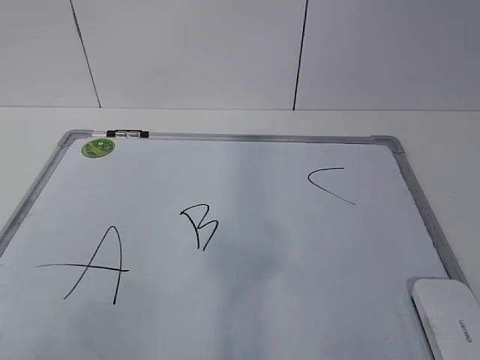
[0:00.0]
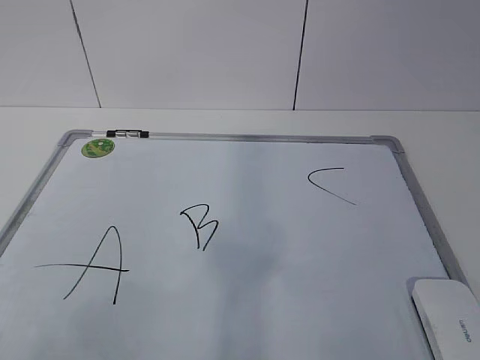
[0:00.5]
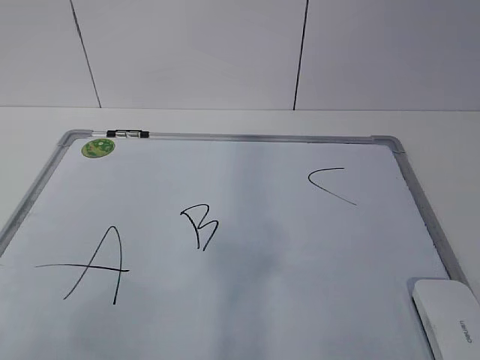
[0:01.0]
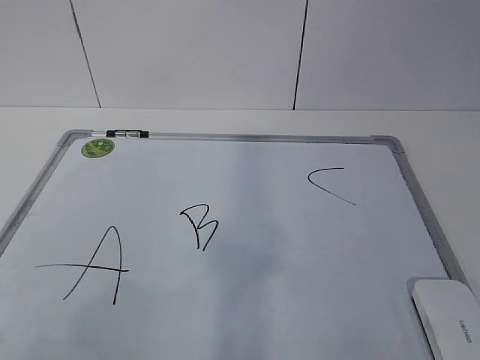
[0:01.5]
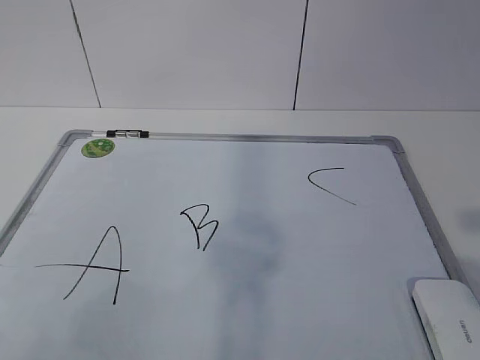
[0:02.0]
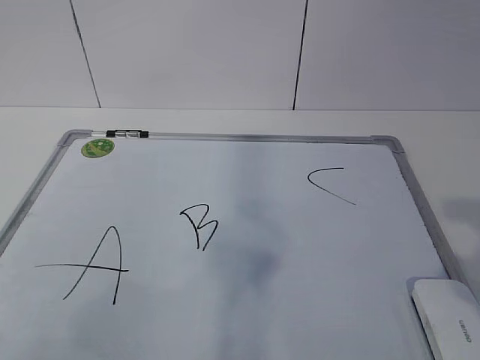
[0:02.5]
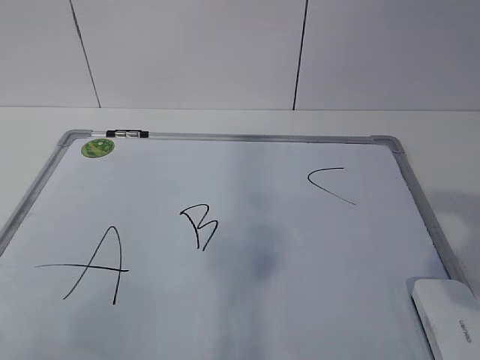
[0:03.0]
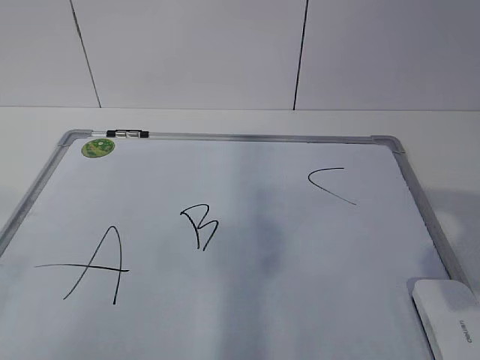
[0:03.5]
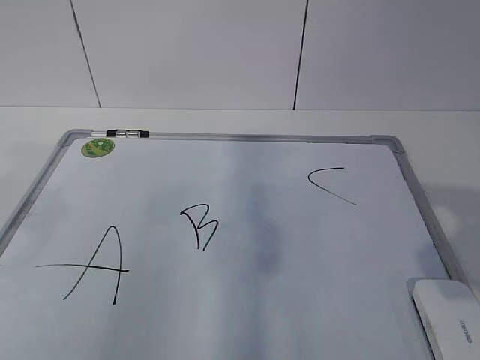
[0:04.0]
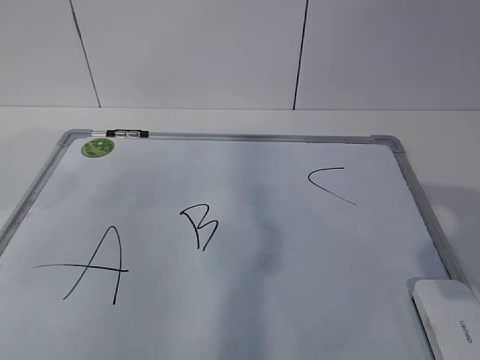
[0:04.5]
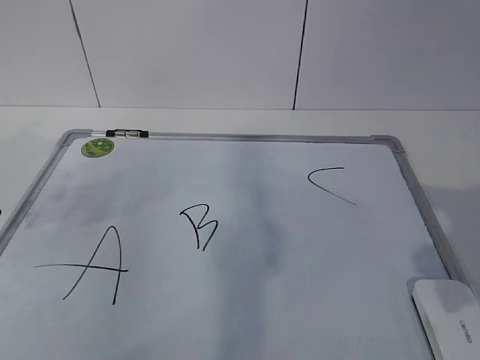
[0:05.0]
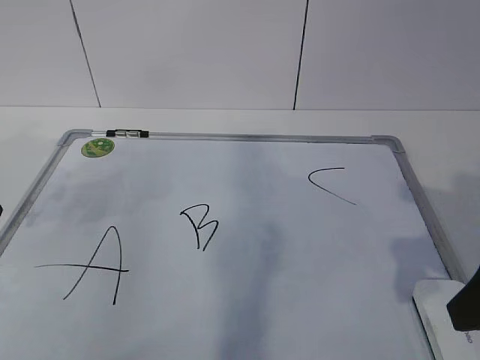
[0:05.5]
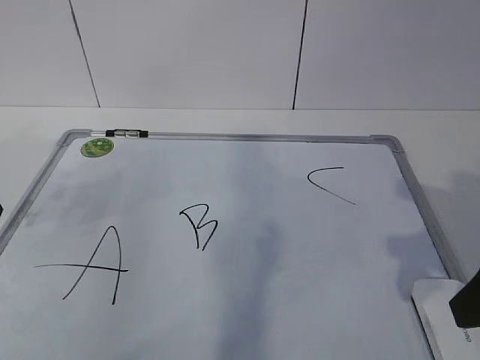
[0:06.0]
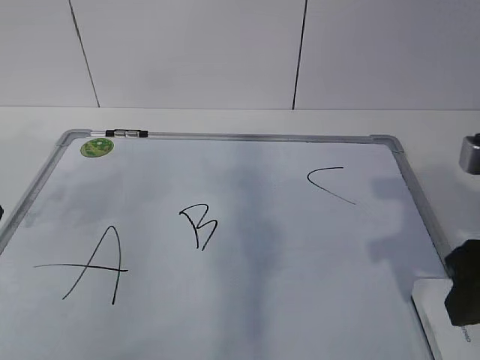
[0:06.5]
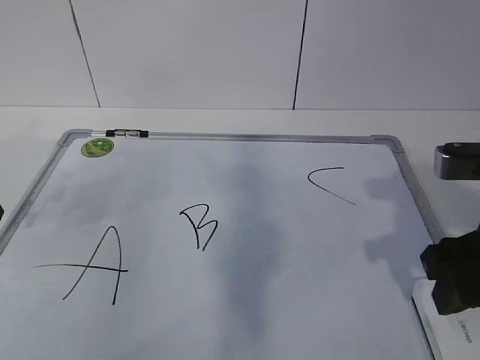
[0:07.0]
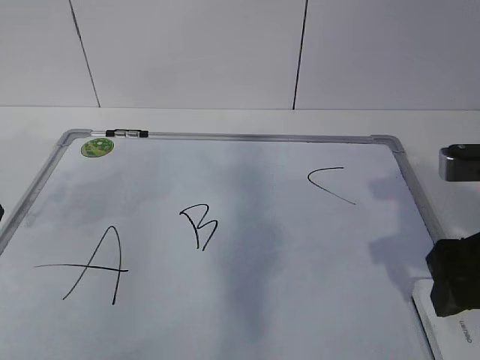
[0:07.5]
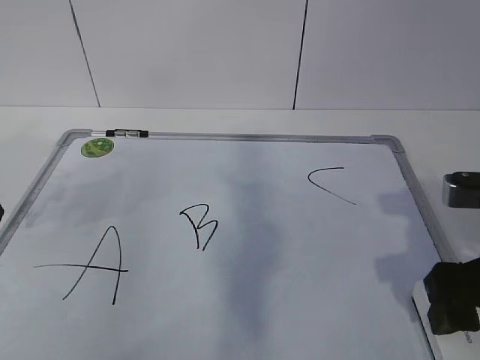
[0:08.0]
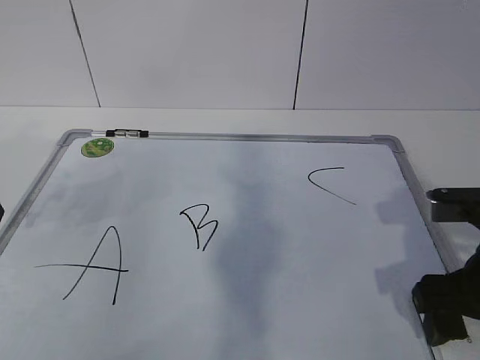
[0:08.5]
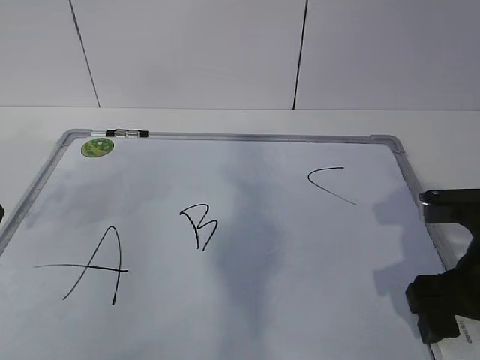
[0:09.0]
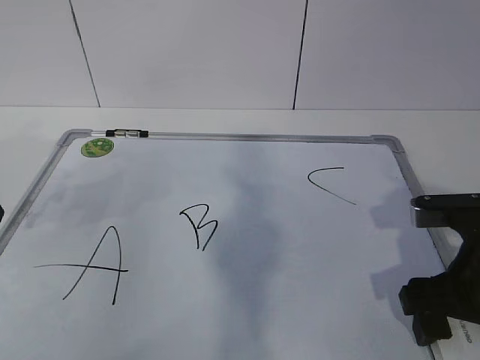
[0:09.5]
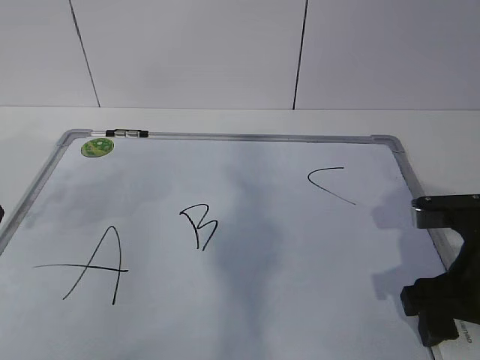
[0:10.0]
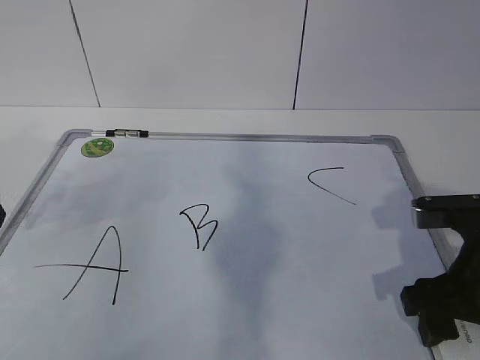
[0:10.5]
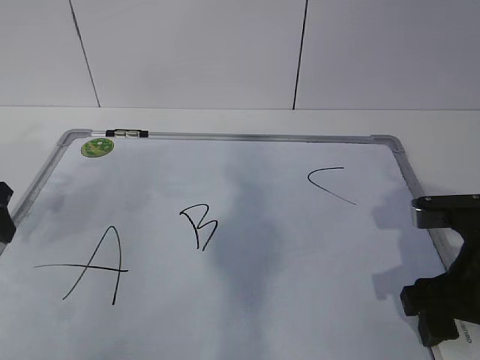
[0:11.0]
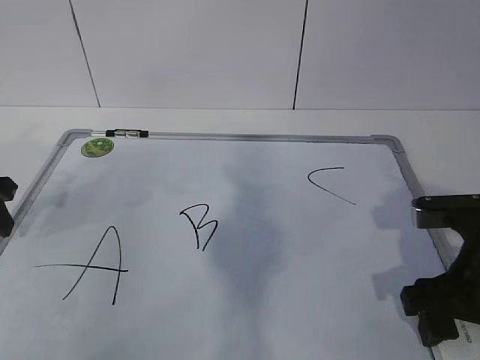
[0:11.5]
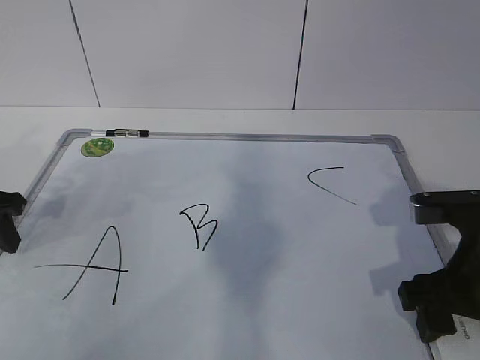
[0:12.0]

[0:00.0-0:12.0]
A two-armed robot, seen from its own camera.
Task of the whole recording: pick up the eraser on the blackboard and erase the letter "B".
Step, 0:00.0 to 0:08.0: Grab the eraser with your right hand.
0:04.0 to 0:06.0: The right gripper is displaced forward by some 5 cm, and closes up.
0:06.0 to 0:08.0: The right gripper moves about 5 cm, and opens its fingers.
0:08.0 to 0:10.0: The right gripper closes up.
0:10.0 to 0:12.0: The left gripper moves downward, approximately 5 cm, and closes up.

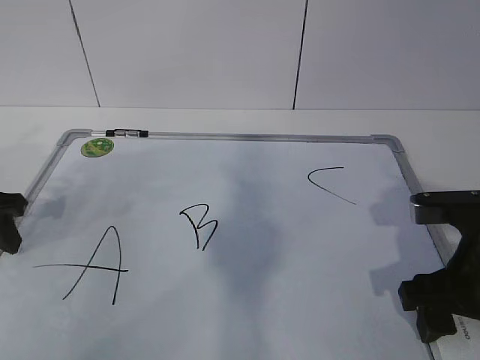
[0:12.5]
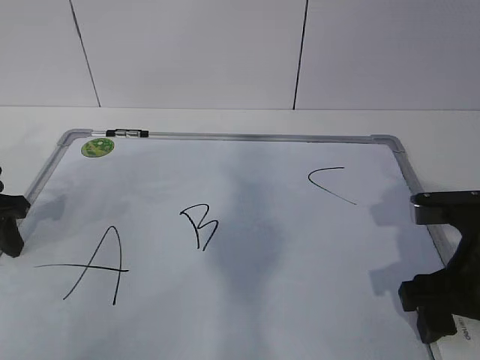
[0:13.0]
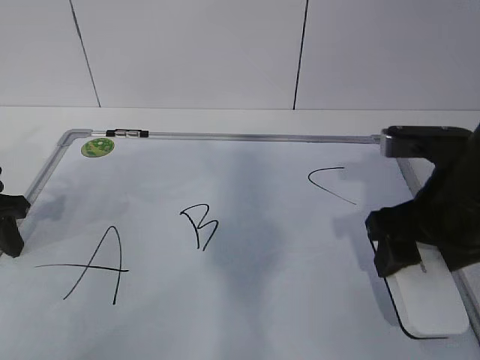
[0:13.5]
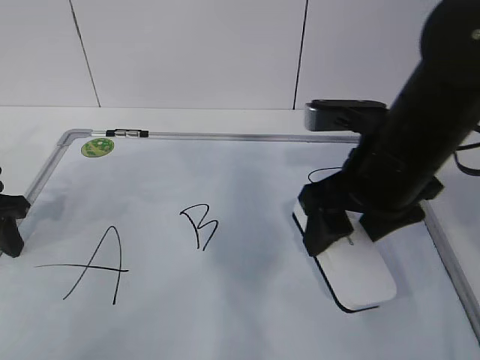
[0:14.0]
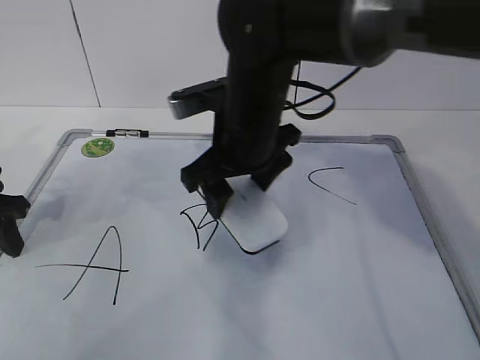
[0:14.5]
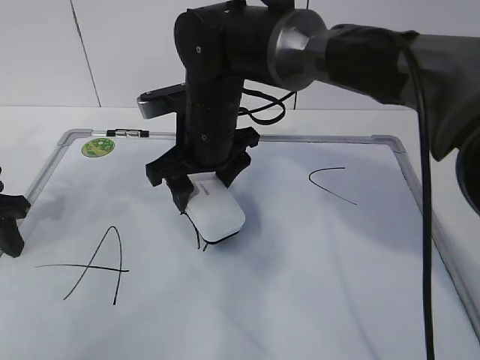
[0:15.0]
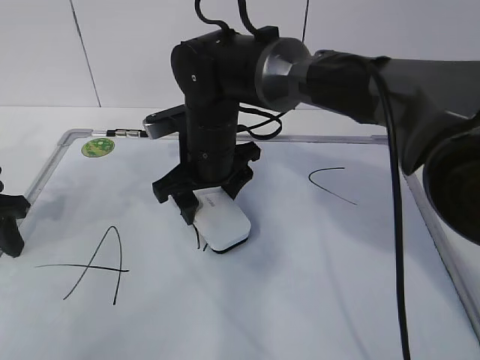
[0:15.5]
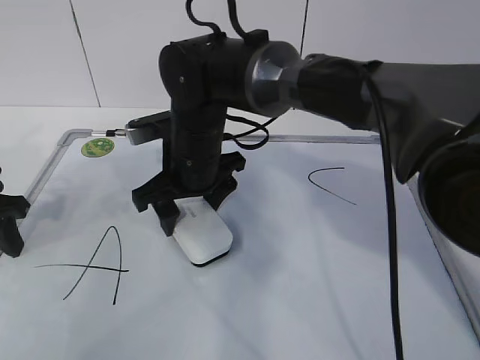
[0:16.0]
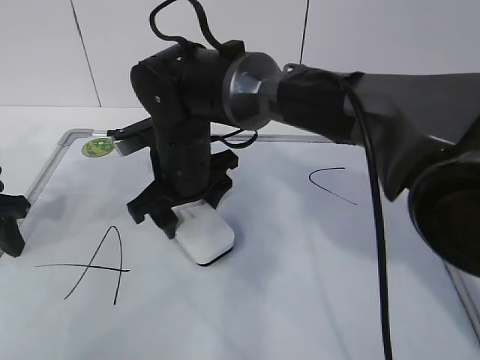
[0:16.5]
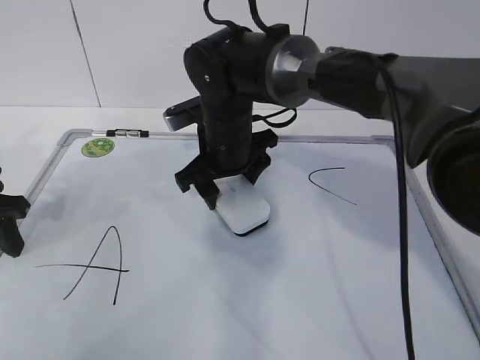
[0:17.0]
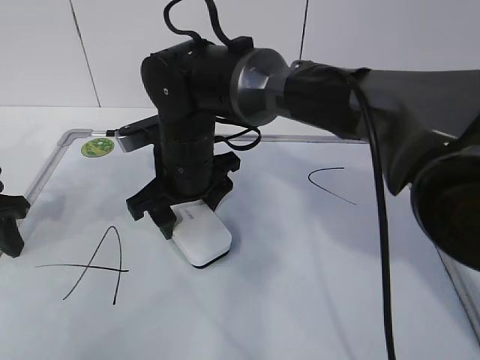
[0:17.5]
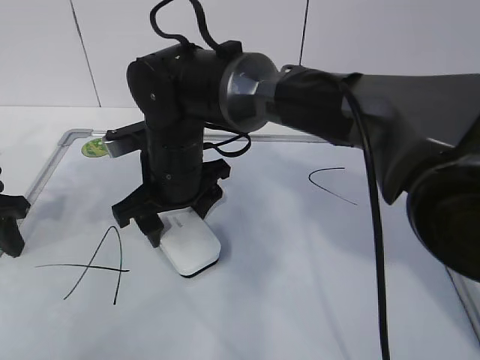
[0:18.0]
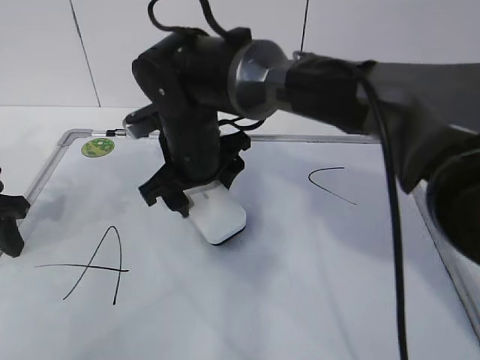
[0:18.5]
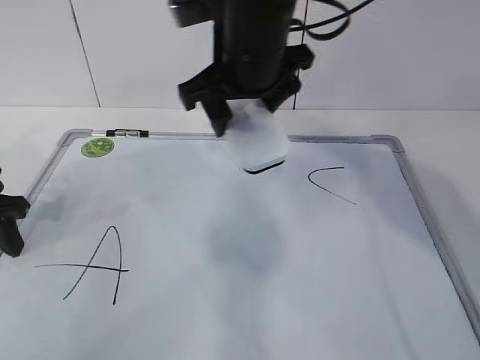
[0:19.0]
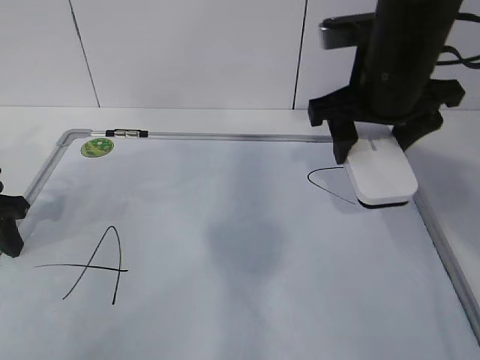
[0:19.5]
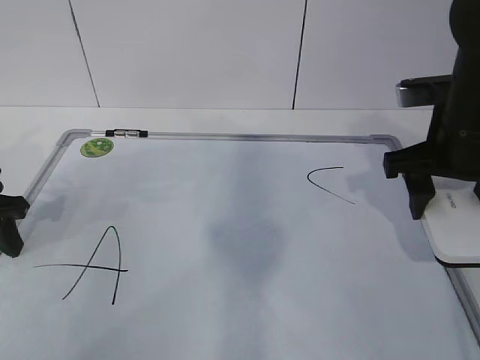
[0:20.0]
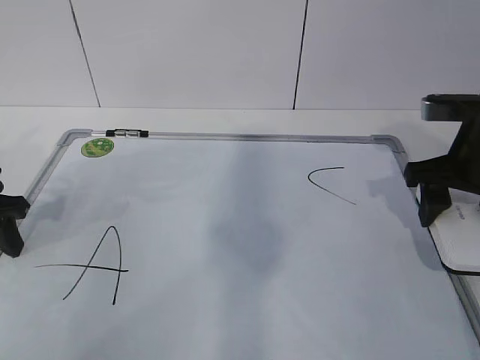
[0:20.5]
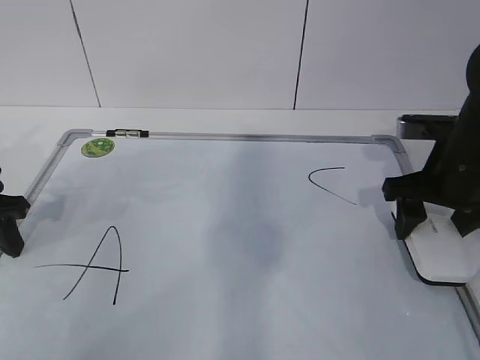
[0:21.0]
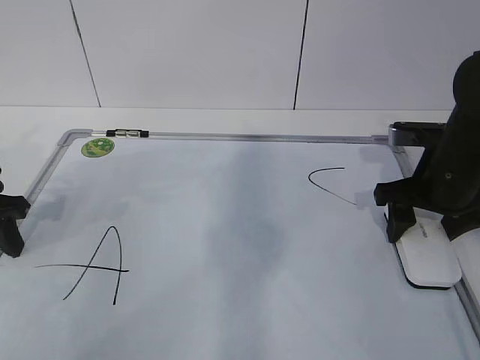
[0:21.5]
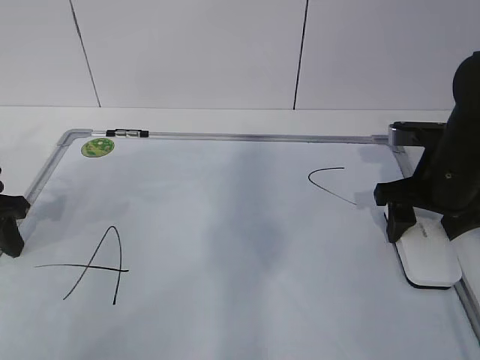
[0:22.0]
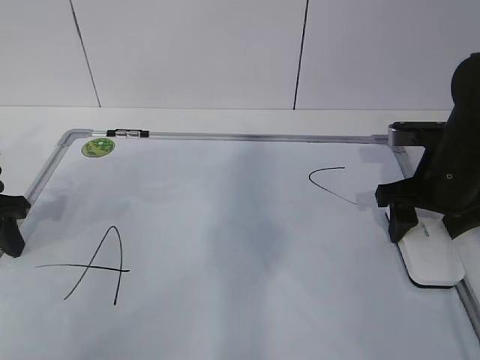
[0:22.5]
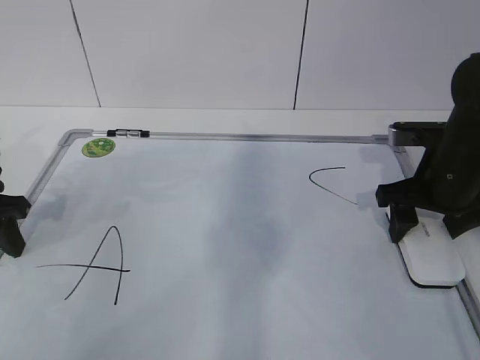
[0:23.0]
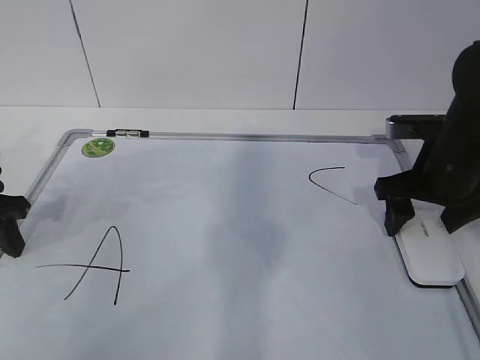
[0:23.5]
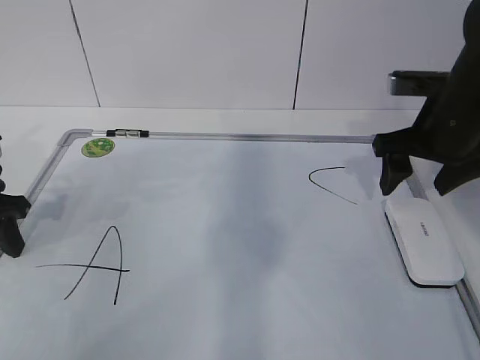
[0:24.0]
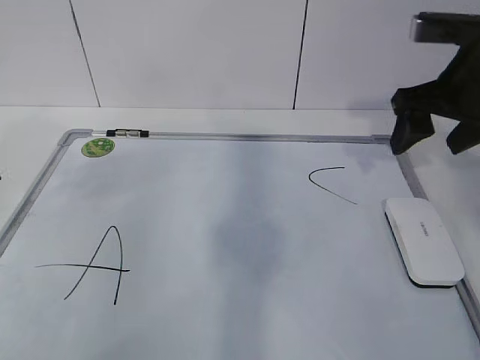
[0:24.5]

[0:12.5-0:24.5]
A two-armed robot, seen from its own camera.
Task of the whole recording: pick up the eraser on the blackboard and erase the letter "B".
Step, 0:12.5 to 0:15.0: Erase the letter B with your right hand.
Step, 0:15.5 to 0:19.0: Put down the eraser with your right hand.
0:12.5 to 0:14.5: The right gripper goes some 25 cm to the left and forward.
0:14.5 to 0:16.5: The right gripper heads to the left and downward, covering approximately 10 cm.
0:16.5 to 0:18.5: There are only small adjustments of the grippers.
0:18.5 to 0:20.5: The right gripper shifts approximately 30 cm to the right.
0:20.5 to 0:22.5: The right gripper moves roughly 5 cm.
0:22.5 to 0:24.5: The two grippers go approximately 10 cm upward. The right gripper opens.

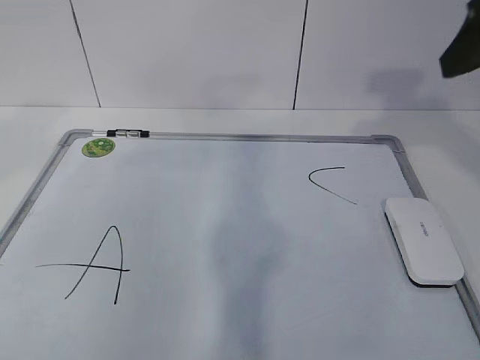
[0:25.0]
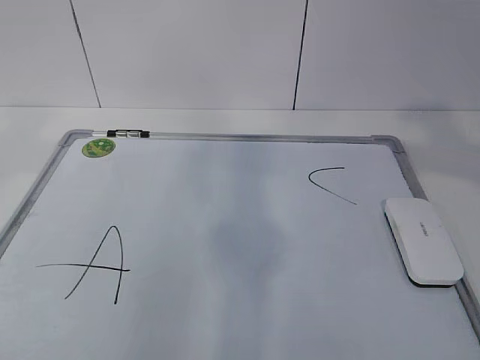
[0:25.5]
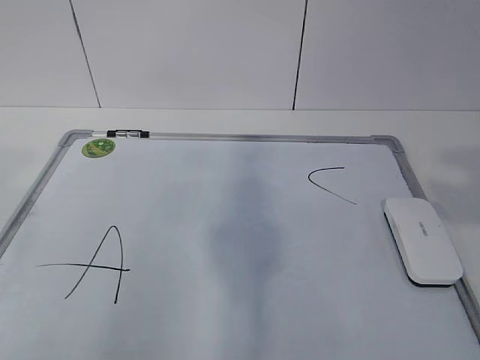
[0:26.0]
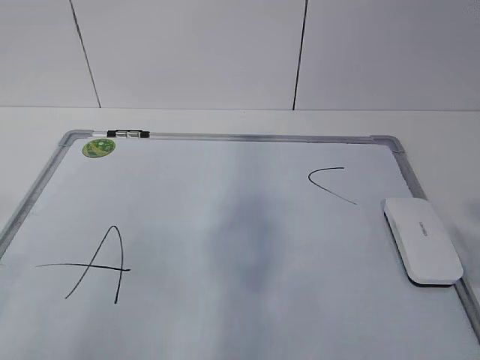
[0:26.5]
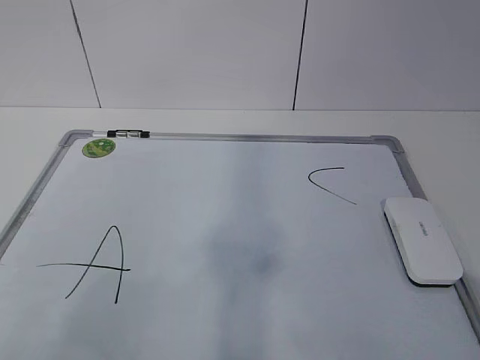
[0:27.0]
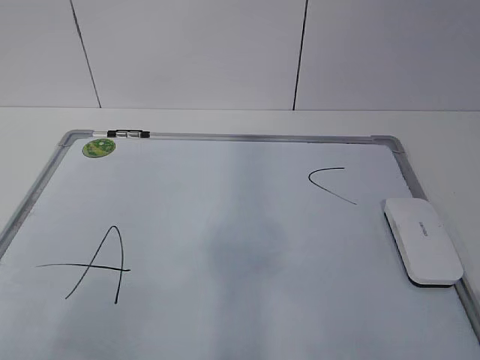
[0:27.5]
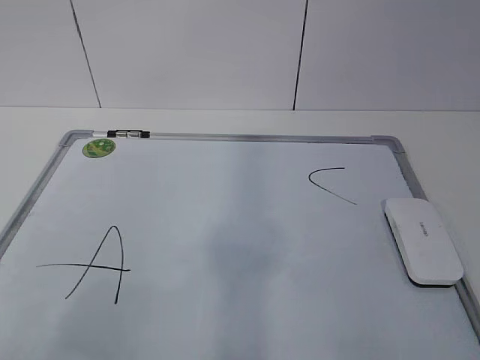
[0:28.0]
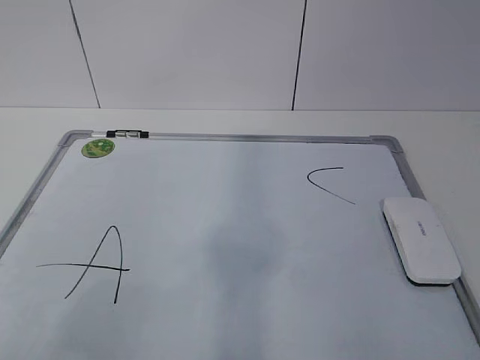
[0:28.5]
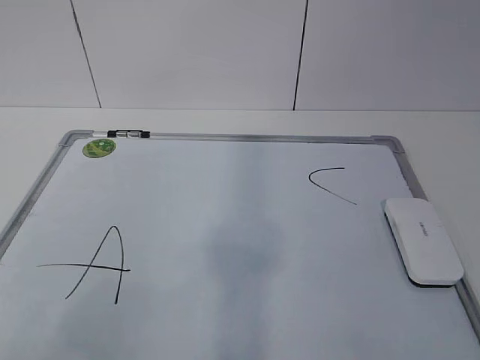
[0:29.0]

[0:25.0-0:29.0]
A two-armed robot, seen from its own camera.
Task of the whole recording: pick up the eraser on the blackboard and erase the letter "B".
0:25.0 to 0:27.0: The grippers both shift backward by roughly 25 cm. The right gripper closes its fingers. The left gripper closes.
